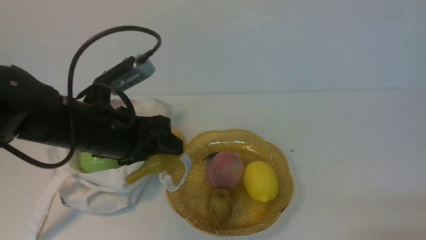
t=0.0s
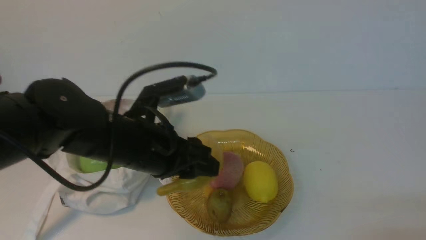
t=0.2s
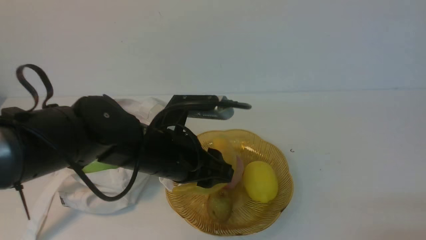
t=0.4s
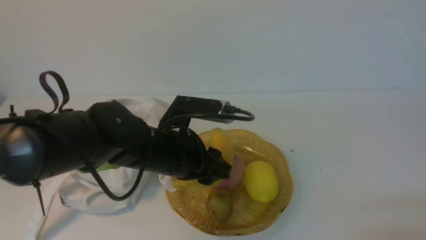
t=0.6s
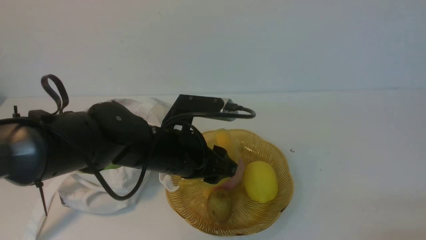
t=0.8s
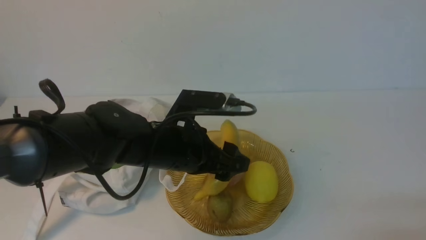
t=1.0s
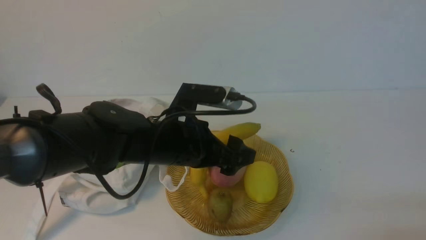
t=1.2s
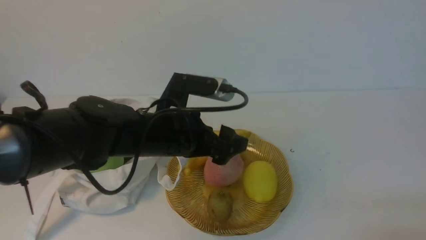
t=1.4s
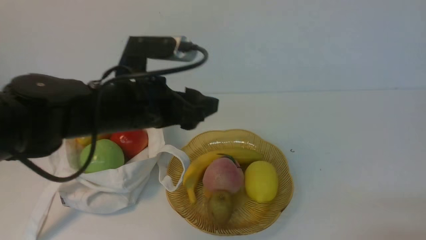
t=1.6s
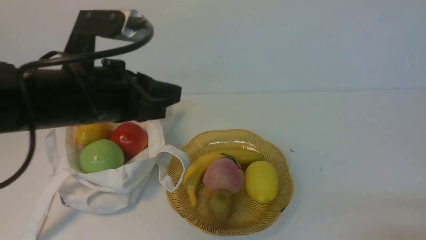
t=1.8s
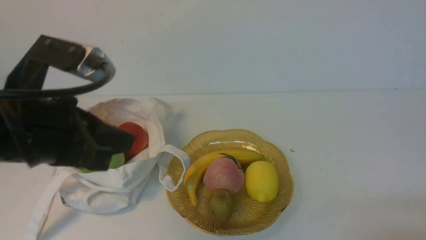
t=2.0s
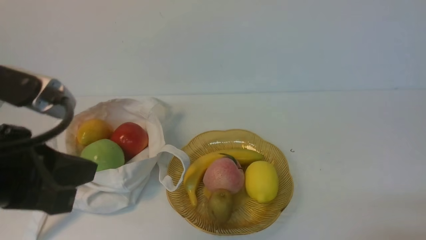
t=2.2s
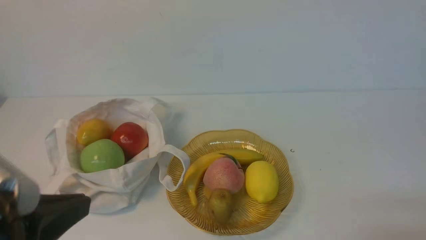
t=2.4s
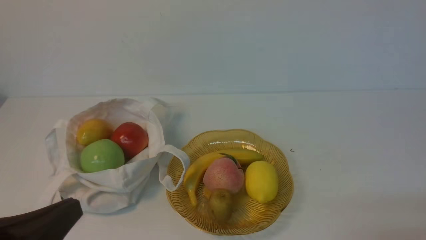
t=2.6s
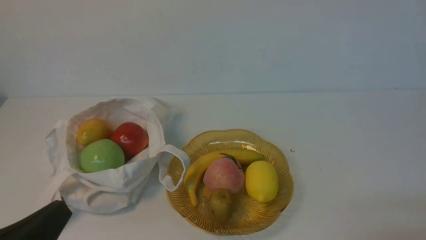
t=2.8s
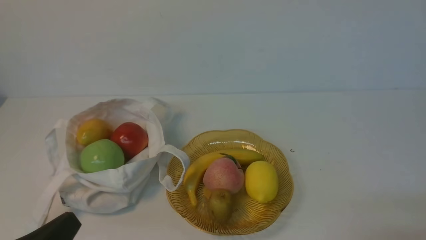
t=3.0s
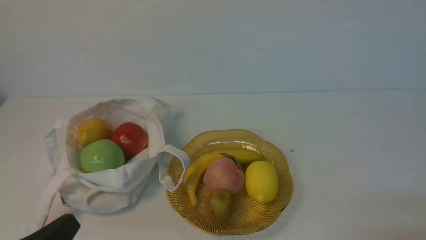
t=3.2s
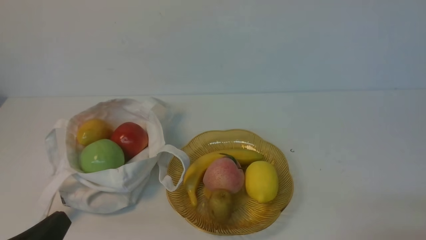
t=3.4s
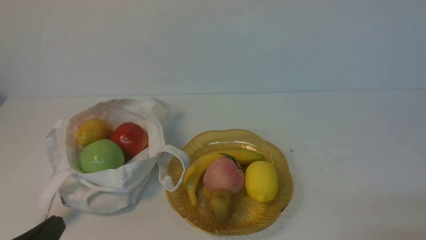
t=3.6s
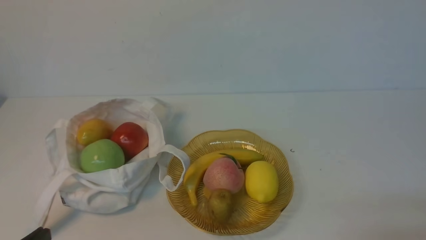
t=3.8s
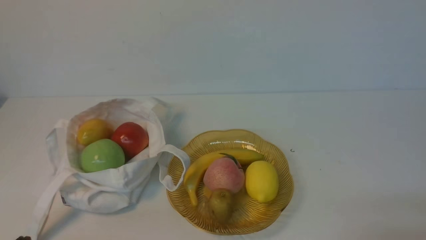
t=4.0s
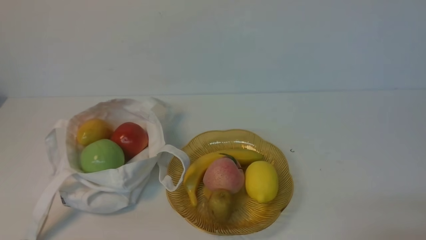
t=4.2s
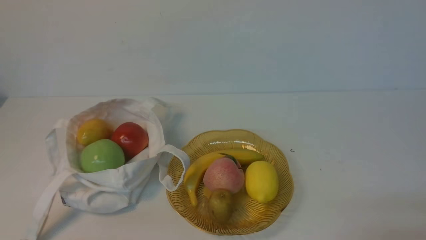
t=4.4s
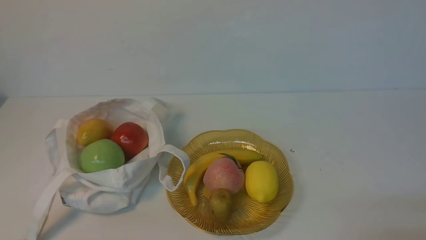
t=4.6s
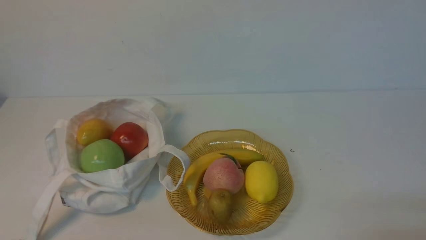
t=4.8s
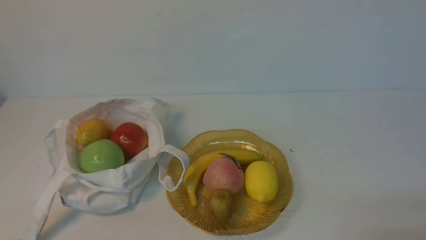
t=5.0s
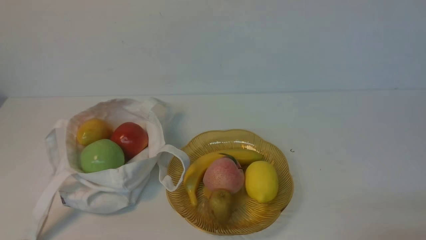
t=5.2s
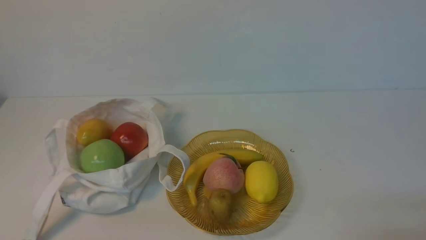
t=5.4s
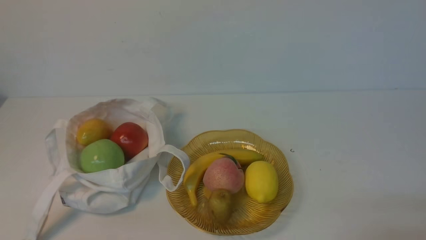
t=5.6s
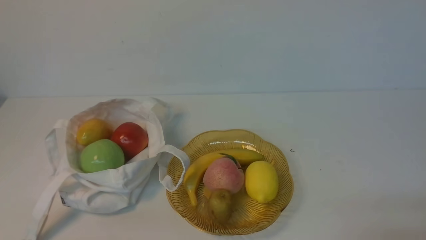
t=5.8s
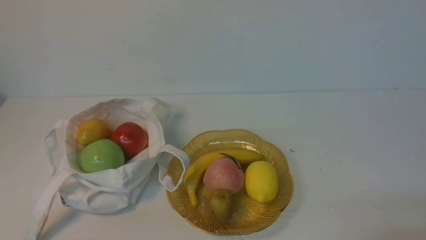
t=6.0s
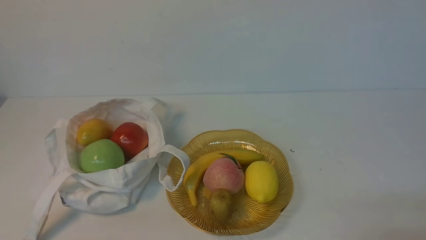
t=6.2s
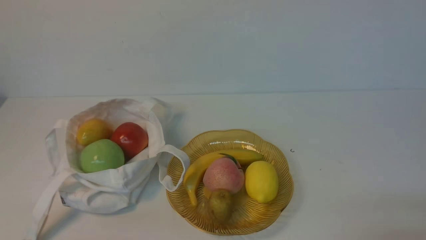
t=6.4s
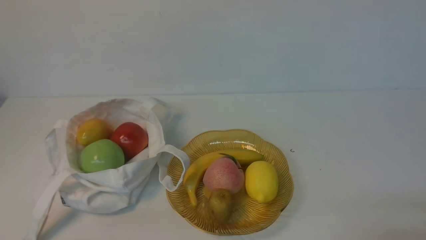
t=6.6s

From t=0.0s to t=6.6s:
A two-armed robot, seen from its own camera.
Step, from t=0.0s to t=1.0s: use the left arm to put the banana into the empty plate on the right.
From t=0.0s to t=1.6s: The left gripper opens and closes again.
From t=1.6s to t=3.2s: The left gripper goes about 25 cm backward and to the left, and closes up.
From t=3.2s to t=5.0s: The left gripper shifts by approximately 5 cm.
From t=5.0s to t=6.6s: Both grippers stay put.
